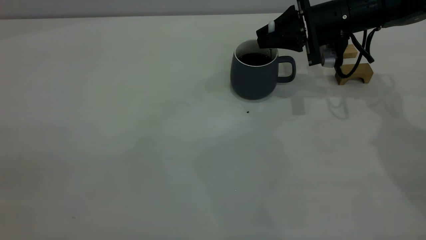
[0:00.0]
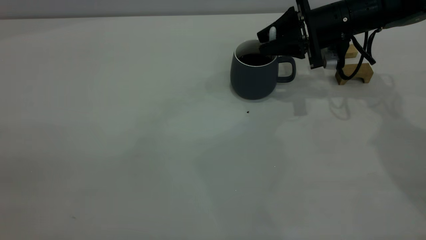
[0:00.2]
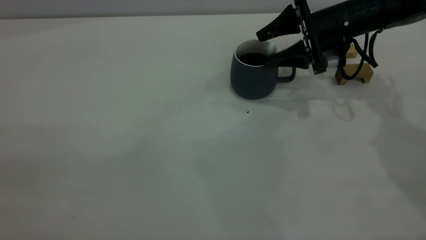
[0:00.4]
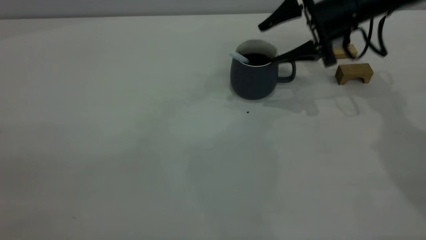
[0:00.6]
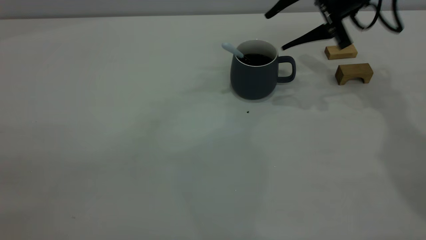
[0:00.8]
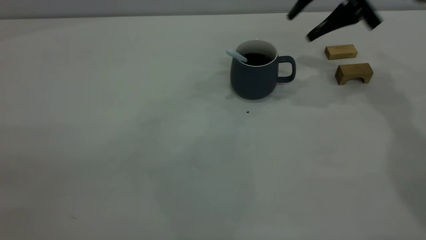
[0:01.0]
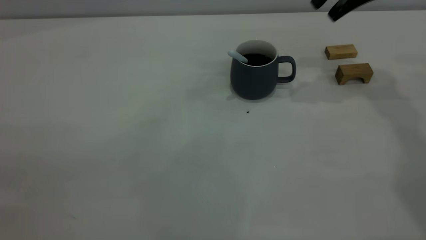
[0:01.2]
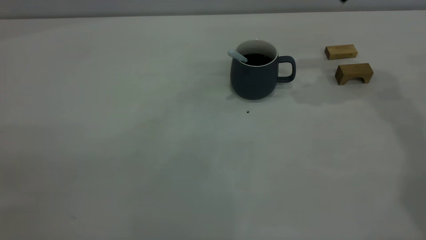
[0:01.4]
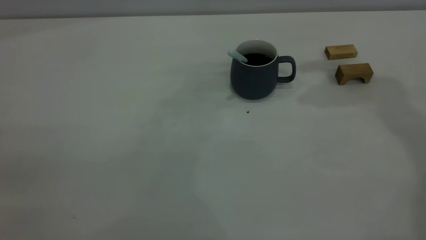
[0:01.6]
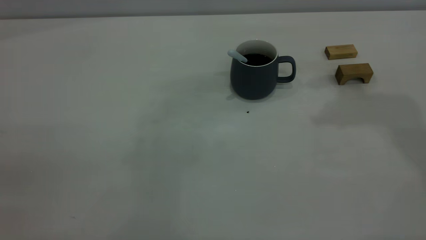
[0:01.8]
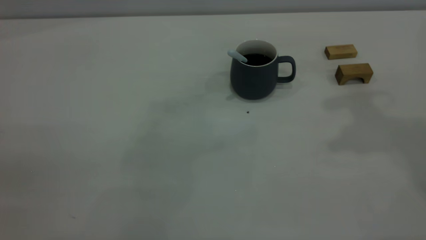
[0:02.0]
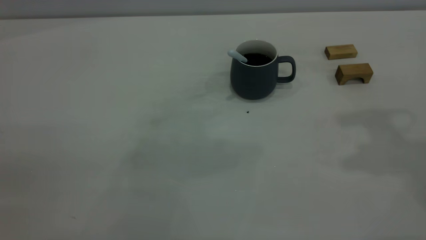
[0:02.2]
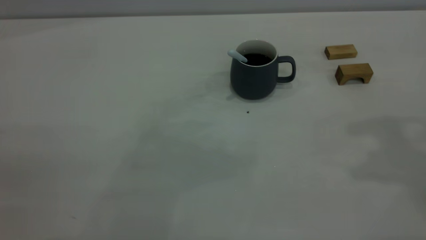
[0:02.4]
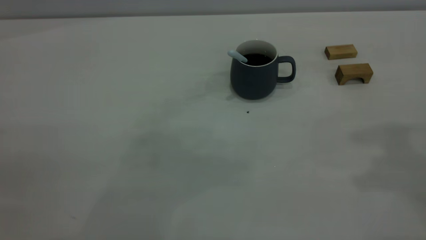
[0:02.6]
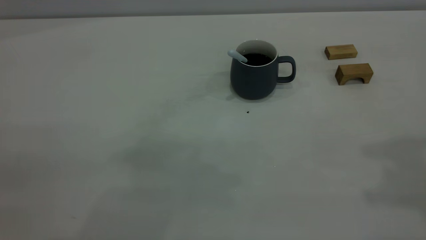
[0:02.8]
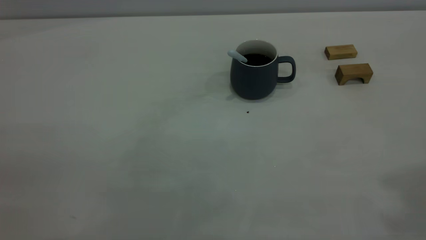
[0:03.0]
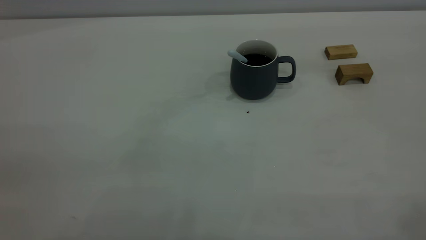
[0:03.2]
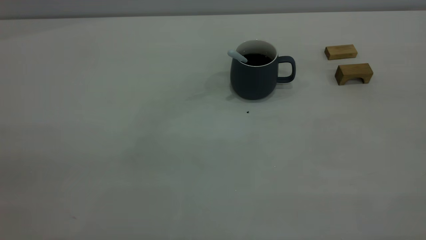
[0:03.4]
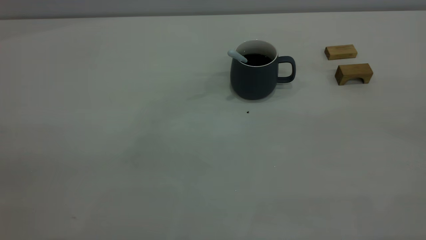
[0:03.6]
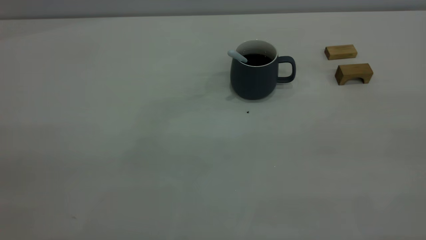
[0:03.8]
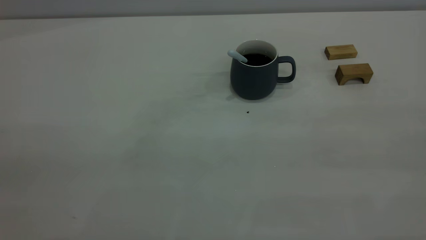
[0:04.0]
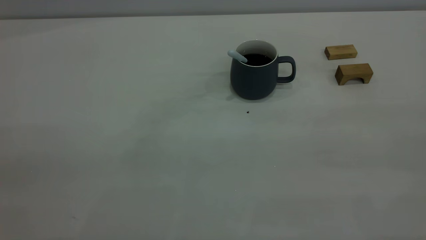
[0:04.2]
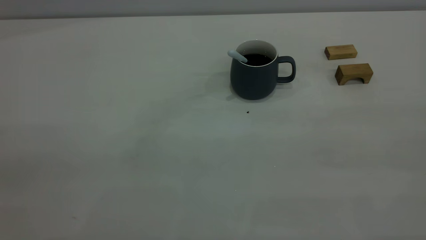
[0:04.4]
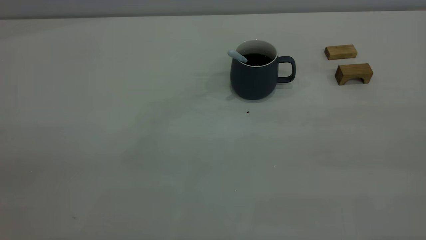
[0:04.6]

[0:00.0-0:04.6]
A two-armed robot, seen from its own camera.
0:00.0 to 0:01.6: The right gripper moves upward, roughly 25 cm, and opens, then closes once more.

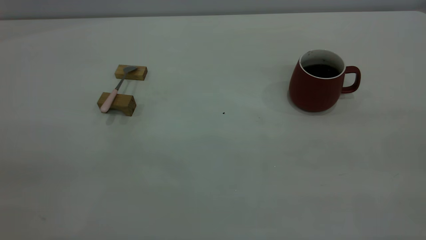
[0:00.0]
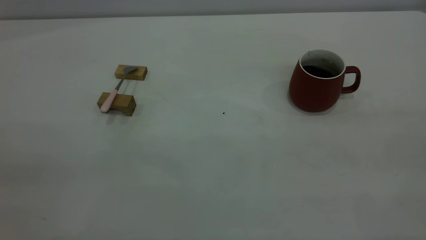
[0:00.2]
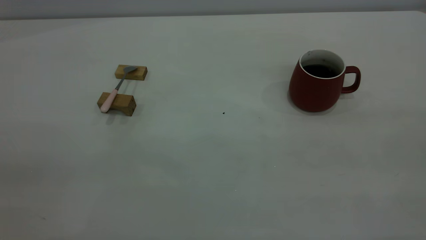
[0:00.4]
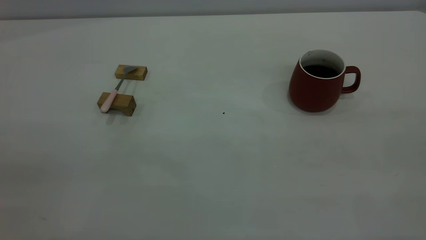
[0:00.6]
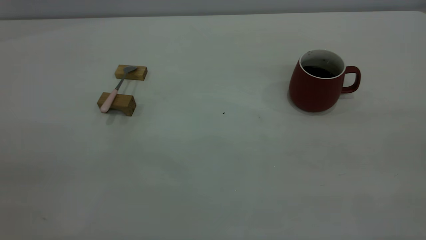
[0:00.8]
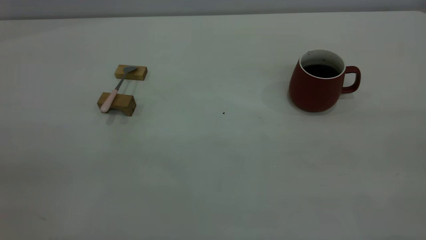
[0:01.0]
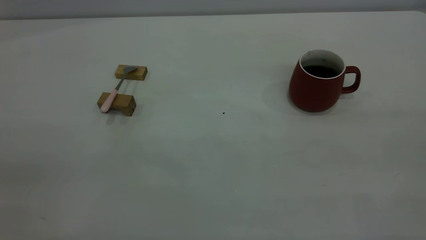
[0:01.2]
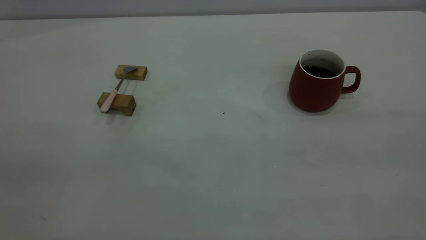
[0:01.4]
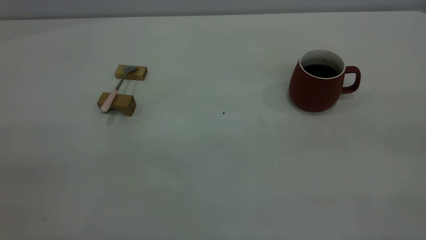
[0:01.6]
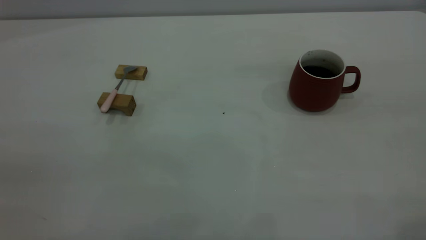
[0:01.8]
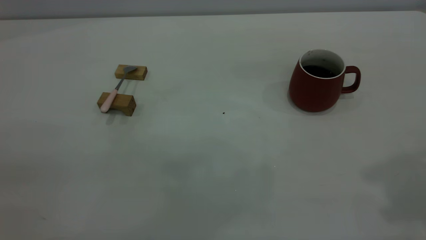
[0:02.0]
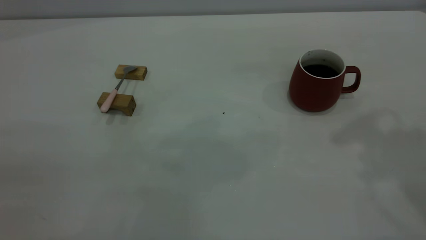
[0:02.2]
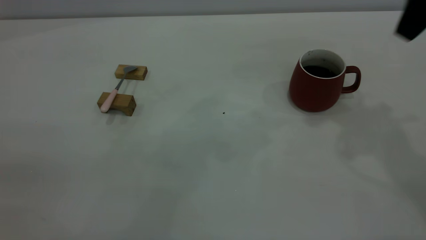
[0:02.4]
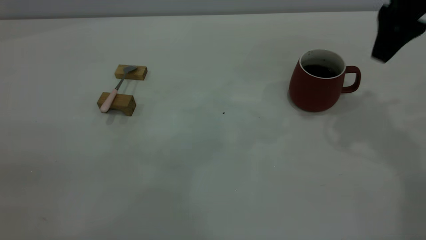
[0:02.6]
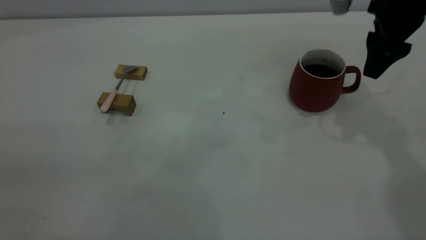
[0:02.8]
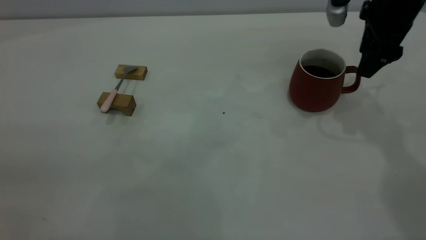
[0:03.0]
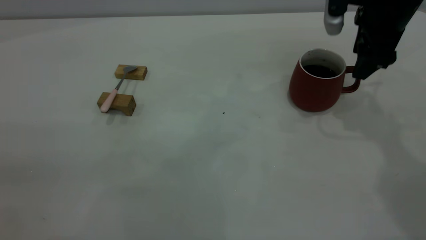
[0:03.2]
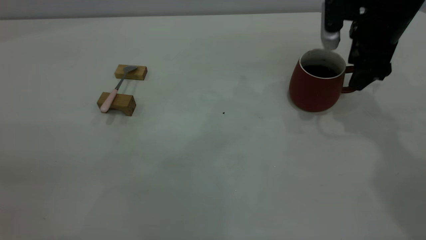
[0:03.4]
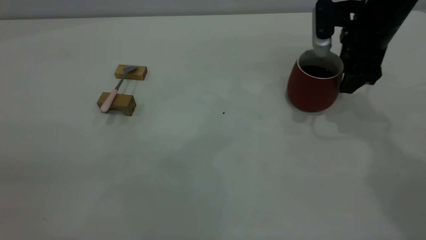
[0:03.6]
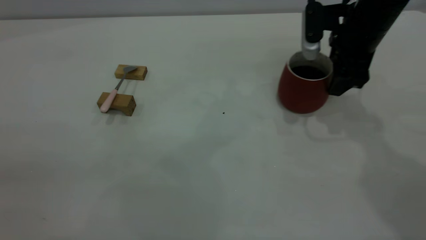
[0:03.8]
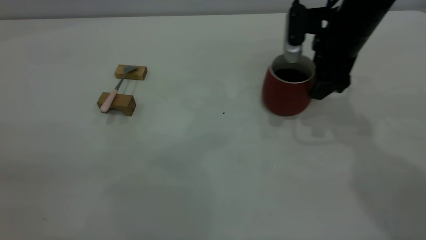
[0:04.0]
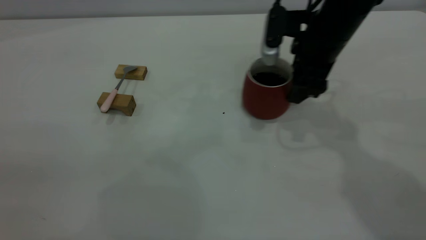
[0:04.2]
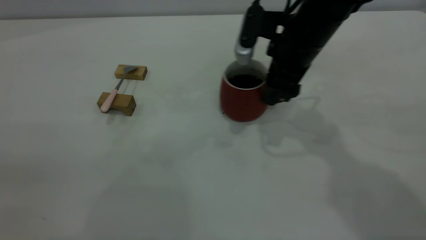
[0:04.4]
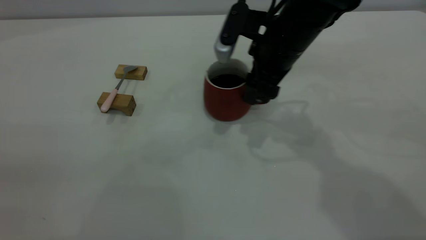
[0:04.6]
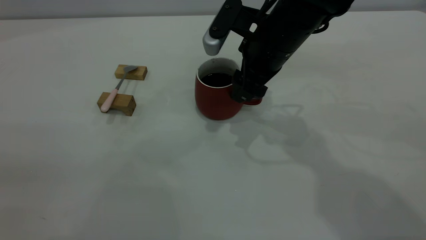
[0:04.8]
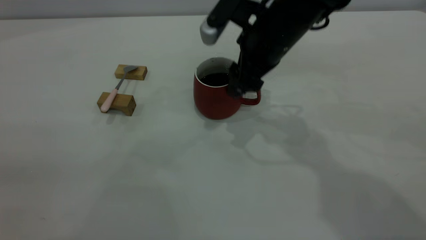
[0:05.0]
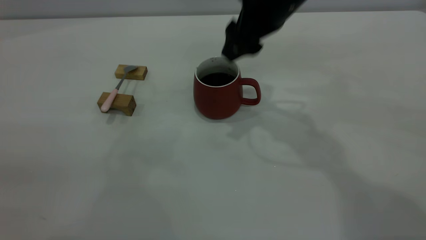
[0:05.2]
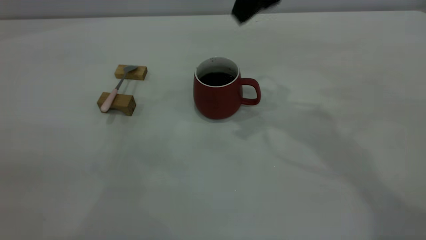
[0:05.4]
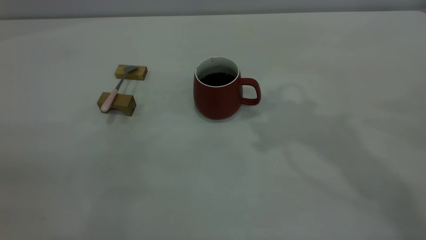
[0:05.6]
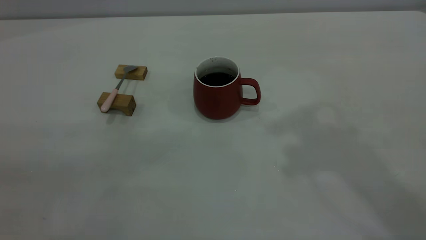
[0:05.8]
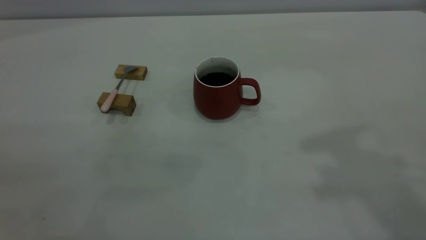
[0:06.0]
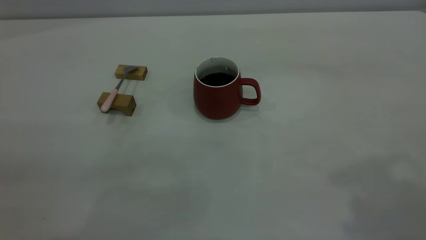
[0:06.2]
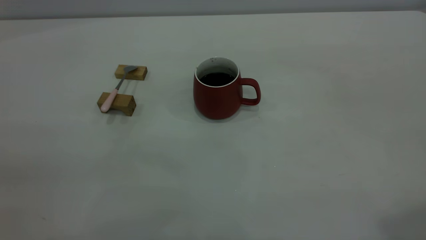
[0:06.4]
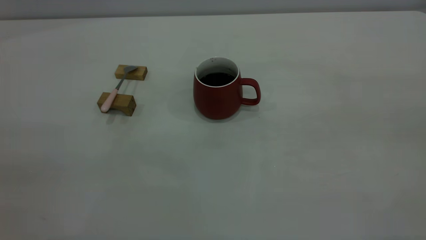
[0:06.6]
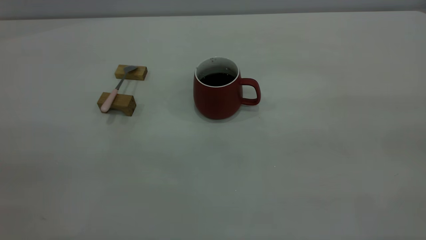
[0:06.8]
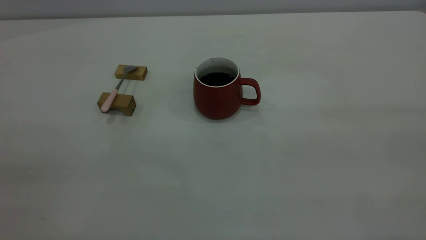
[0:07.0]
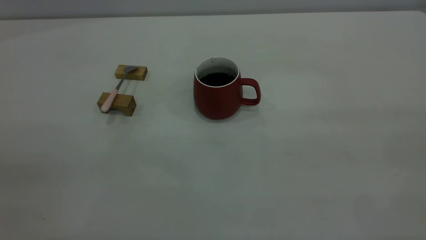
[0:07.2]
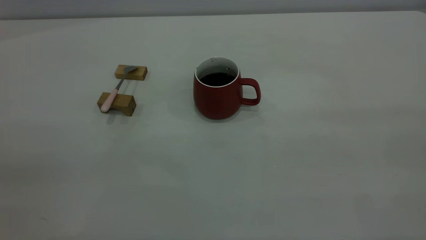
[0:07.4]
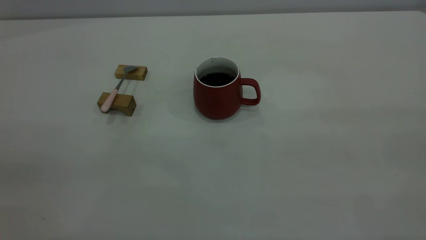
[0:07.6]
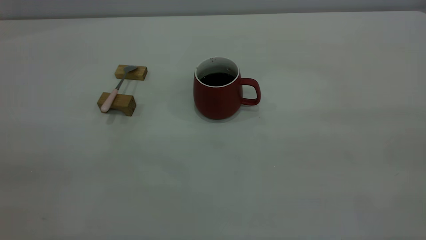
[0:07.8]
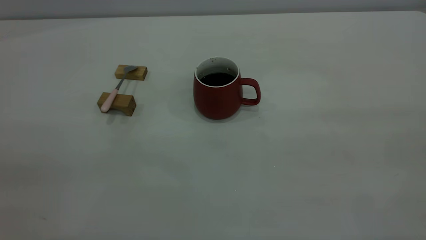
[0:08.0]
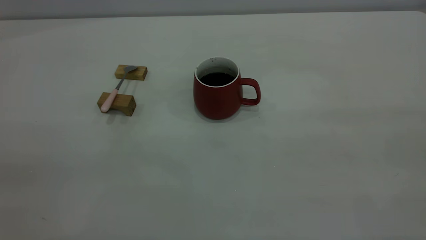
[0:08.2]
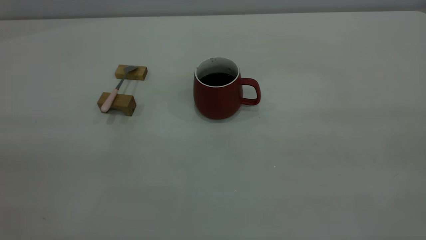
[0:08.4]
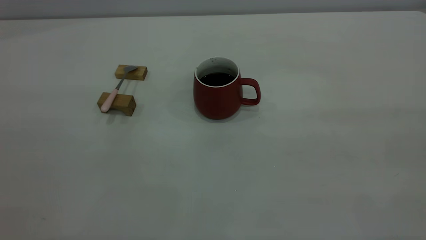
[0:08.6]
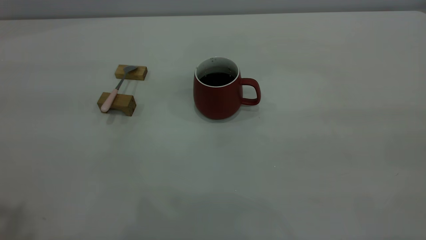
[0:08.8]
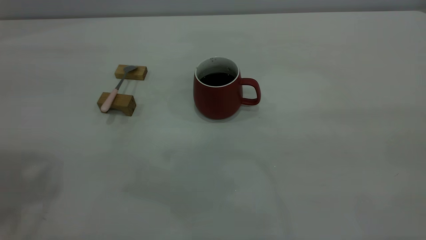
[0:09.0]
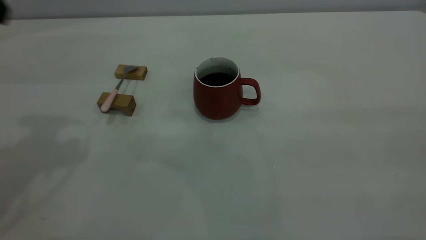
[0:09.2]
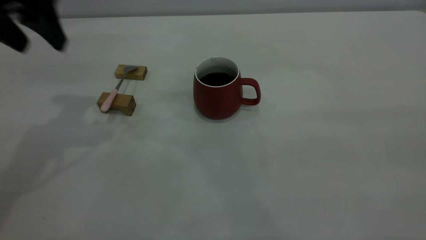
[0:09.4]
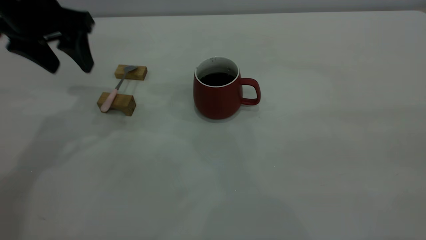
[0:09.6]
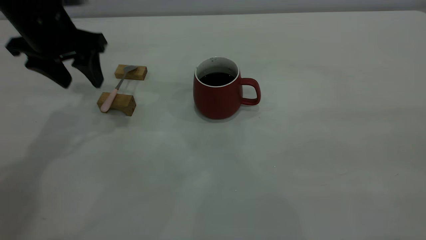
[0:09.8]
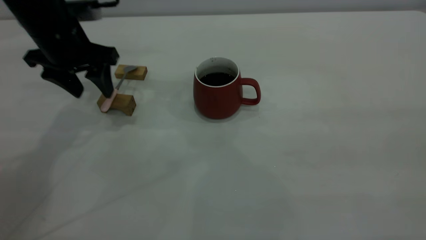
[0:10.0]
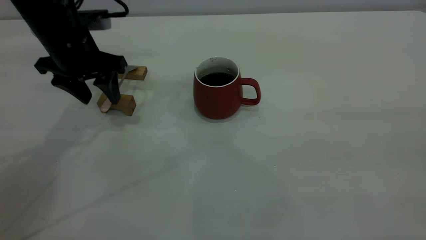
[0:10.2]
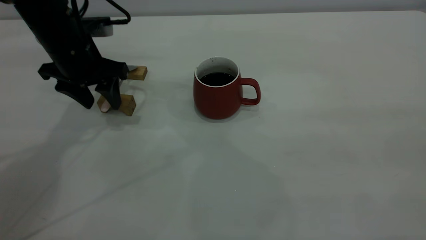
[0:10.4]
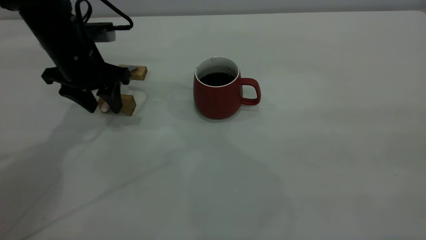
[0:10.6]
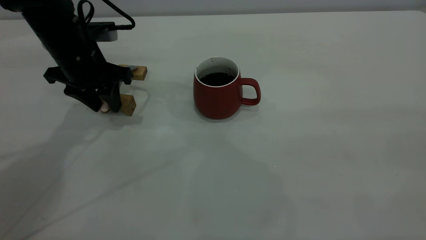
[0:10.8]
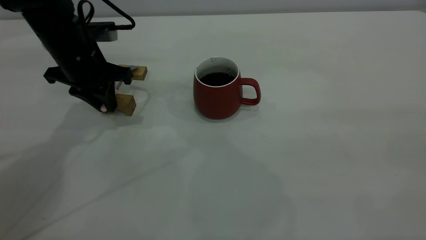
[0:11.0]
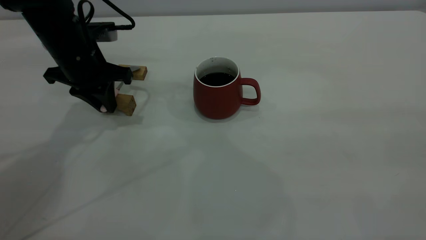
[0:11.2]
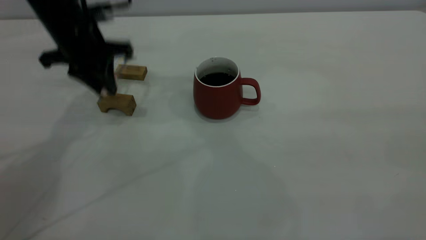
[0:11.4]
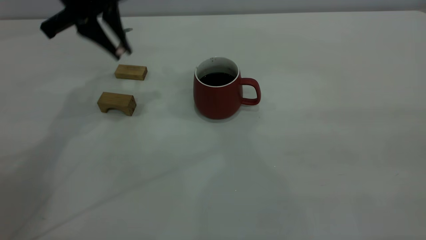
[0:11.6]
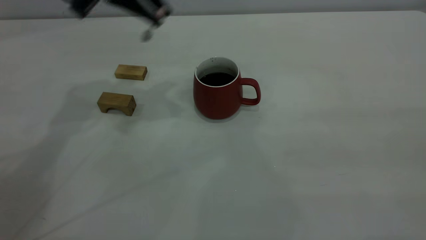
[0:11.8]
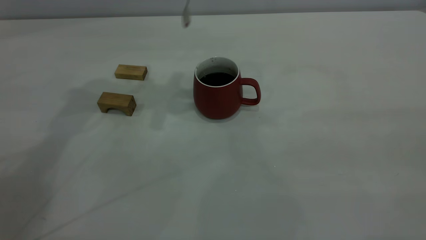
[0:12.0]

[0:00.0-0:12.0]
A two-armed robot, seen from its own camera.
Step, 0:00.0 to 0:05.0: Move the cup with coffee to the center of view.
Step, 0:05.4 to 0:11.4: Pick up the spoon.
0:01.6 to 0:03.0: The right gripper travels forward and downward by about 40 cm.
0:03.0 to 0:04.4: The right gripper goes approximately 15 cm to the left.
0:04.4 to 0:06.0: The right gripper travels upward and backward by some 35 cm.
0:09.0 to 0:10.4: The left gripper travels downward and forward by approximately 30 cm.
0:10.4 to 0:12.0: The left gripper goes approximately 20 cm upward and to the right, and closes its fingers.
